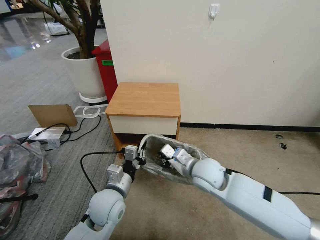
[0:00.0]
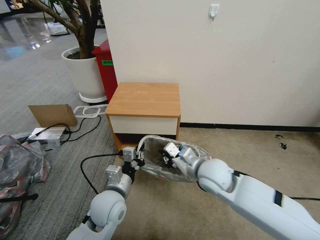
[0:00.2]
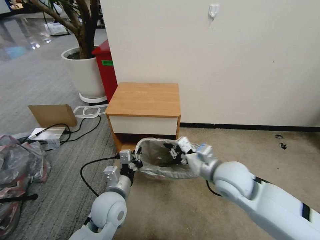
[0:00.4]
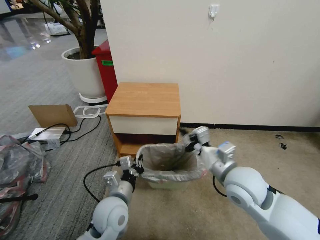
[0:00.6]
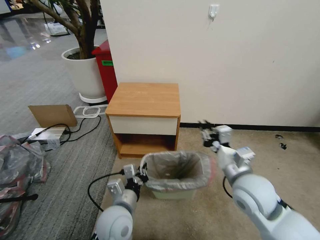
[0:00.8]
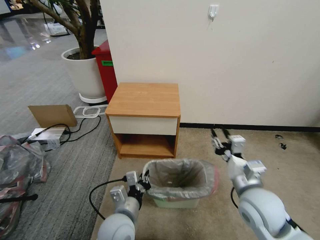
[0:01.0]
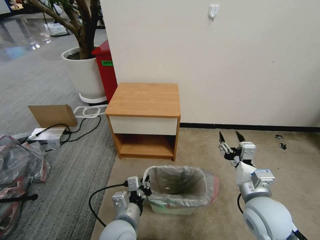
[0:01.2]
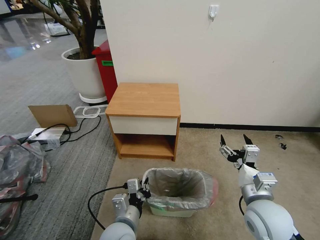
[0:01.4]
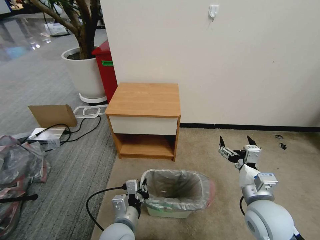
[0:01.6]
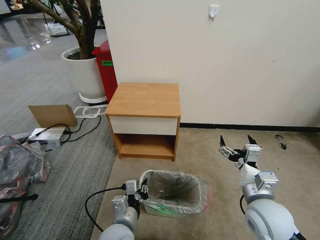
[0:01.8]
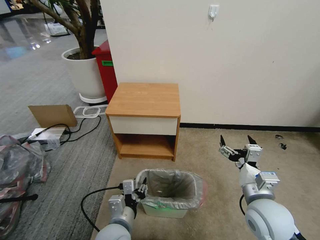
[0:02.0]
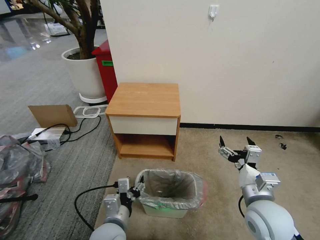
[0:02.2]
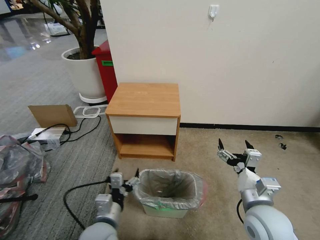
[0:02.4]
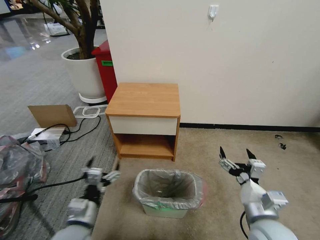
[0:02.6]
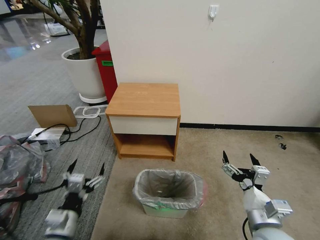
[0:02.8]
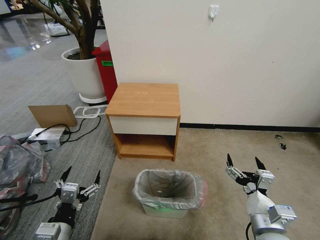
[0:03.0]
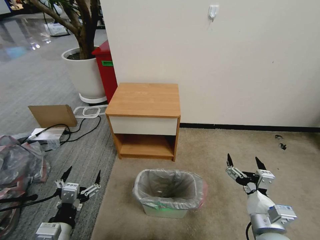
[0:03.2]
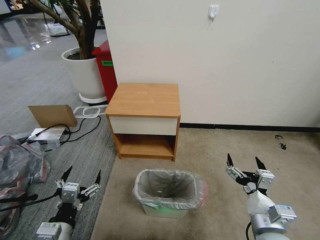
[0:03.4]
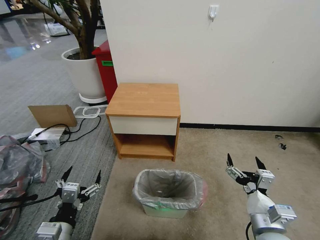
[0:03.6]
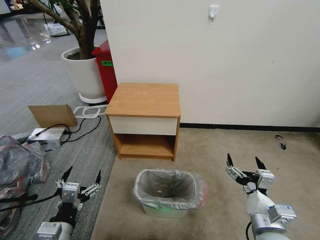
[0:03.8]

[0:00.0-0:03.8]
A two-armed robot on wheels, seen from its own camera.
Task of the whole recording: Pick up the garbage bag from the table and place it over the trash can.
0:00.0 to 0:01.2: The right gripper moves to the right and backward, approximately 15 cm, and opens up. Meanwhile the left gripper travels backward by some 10 cm.
0:01.2 to 0:02.6: The right gripper ends up roughly 5 cm from where it was, and opens up, while the left gripper is displaced to the left by approximately 10 cm, and opens up.
0:02.6 to 0:03.8: The left gripper is displaced backward by approximately 5 cm.

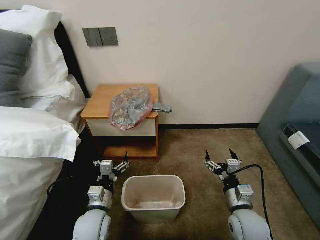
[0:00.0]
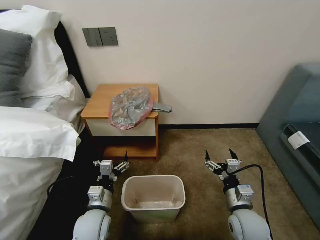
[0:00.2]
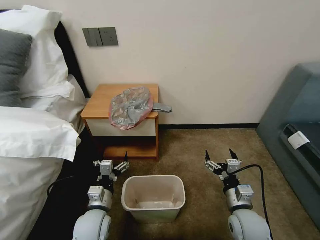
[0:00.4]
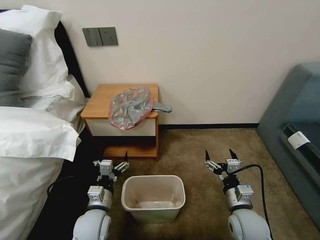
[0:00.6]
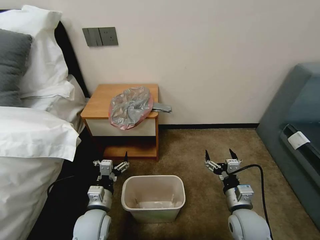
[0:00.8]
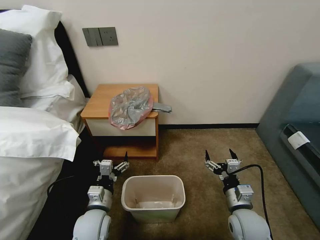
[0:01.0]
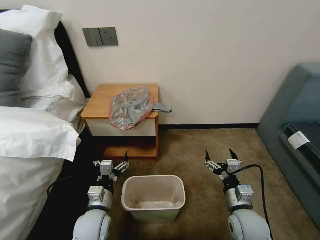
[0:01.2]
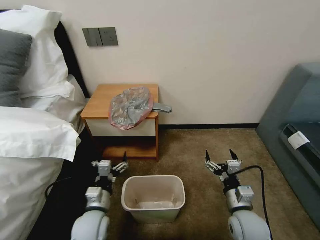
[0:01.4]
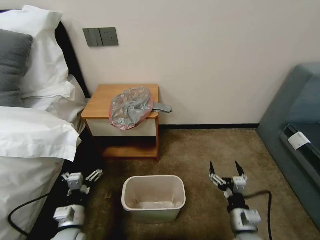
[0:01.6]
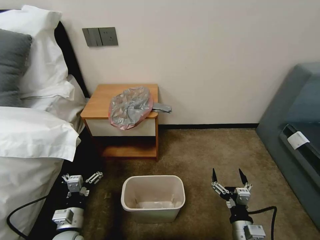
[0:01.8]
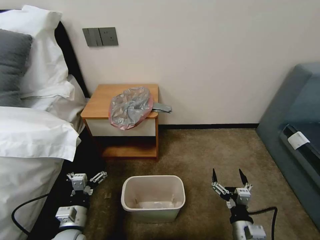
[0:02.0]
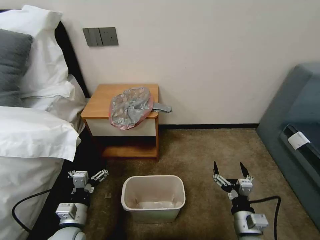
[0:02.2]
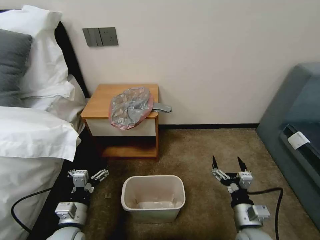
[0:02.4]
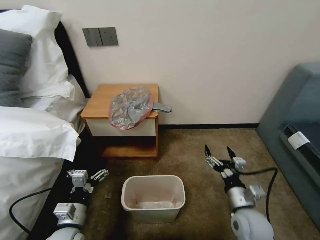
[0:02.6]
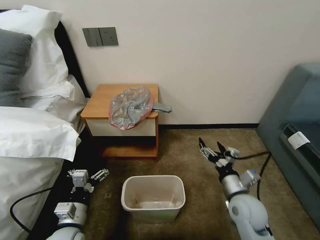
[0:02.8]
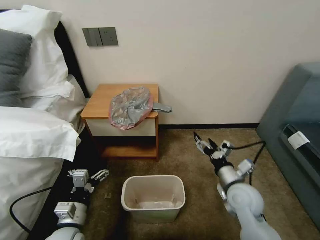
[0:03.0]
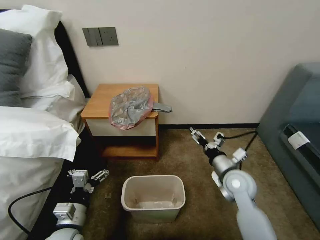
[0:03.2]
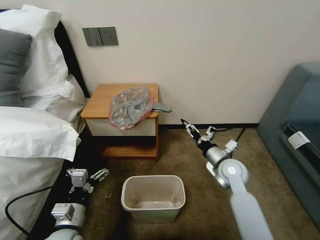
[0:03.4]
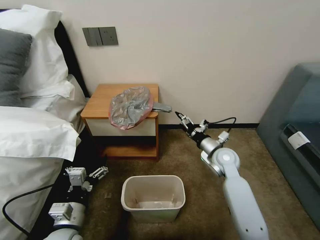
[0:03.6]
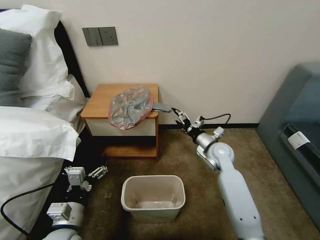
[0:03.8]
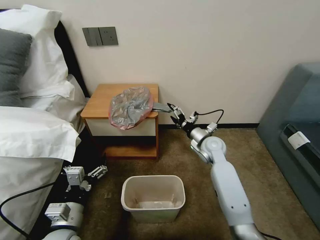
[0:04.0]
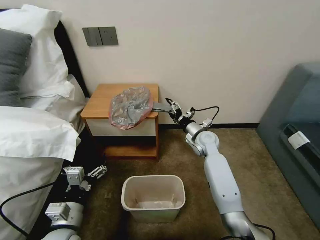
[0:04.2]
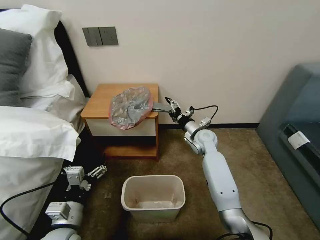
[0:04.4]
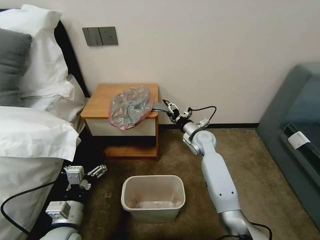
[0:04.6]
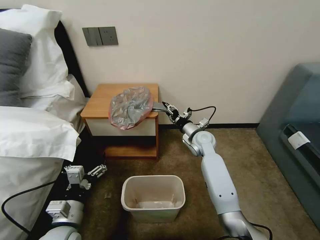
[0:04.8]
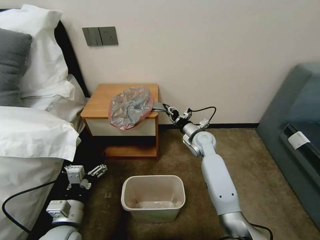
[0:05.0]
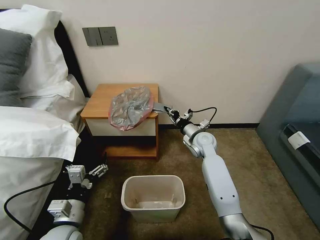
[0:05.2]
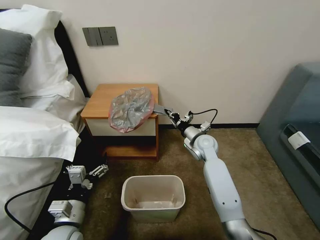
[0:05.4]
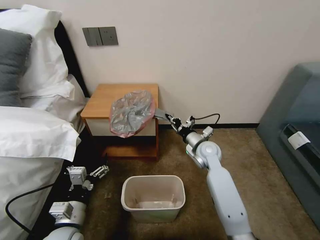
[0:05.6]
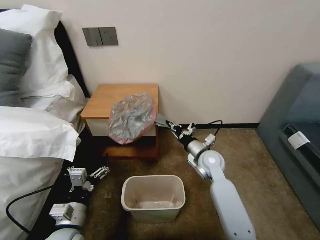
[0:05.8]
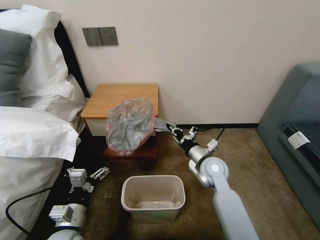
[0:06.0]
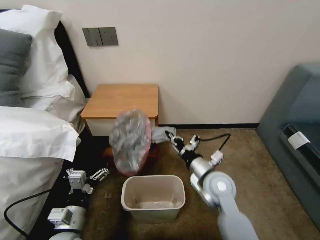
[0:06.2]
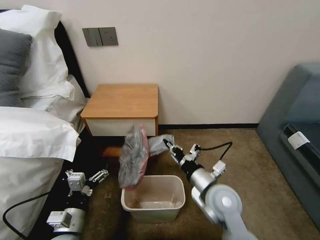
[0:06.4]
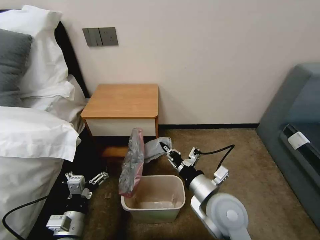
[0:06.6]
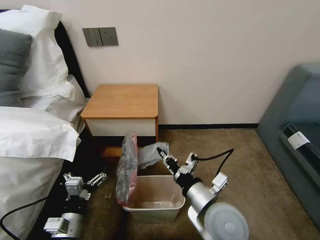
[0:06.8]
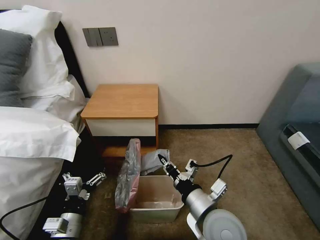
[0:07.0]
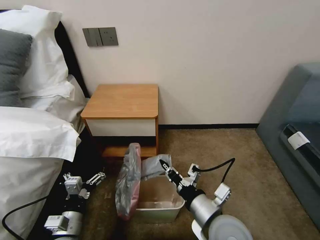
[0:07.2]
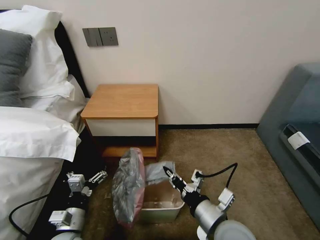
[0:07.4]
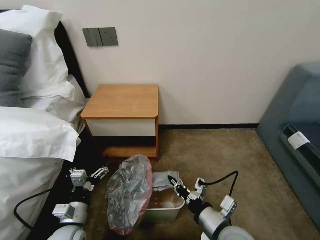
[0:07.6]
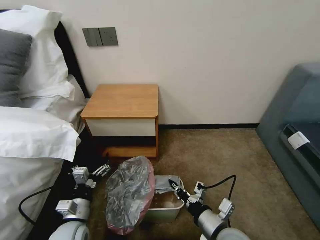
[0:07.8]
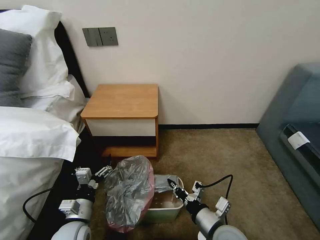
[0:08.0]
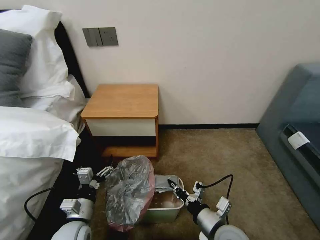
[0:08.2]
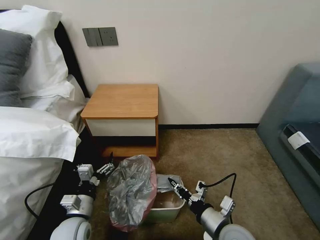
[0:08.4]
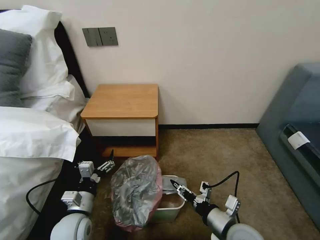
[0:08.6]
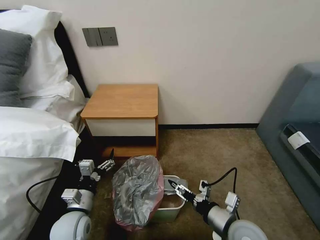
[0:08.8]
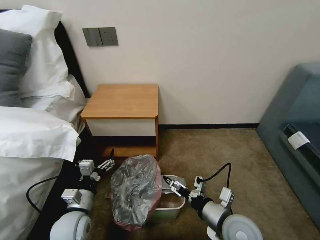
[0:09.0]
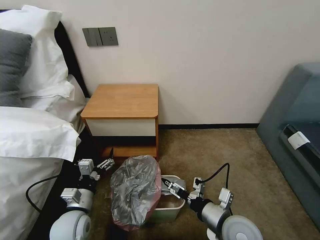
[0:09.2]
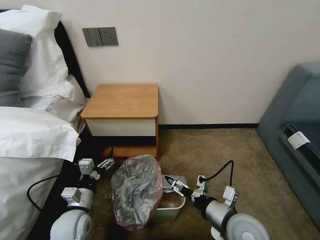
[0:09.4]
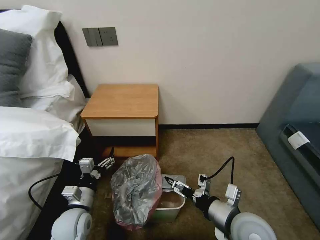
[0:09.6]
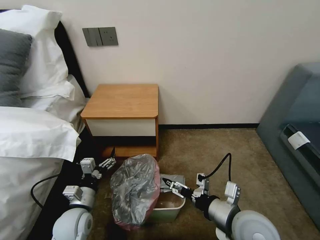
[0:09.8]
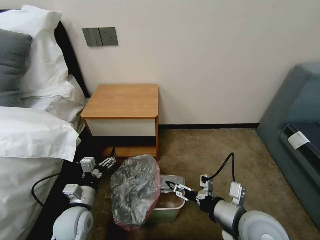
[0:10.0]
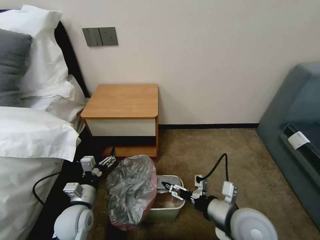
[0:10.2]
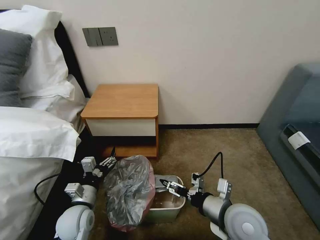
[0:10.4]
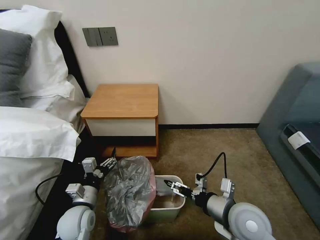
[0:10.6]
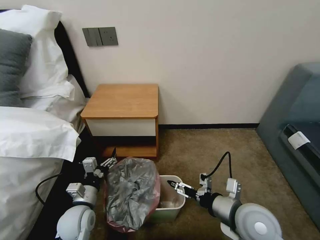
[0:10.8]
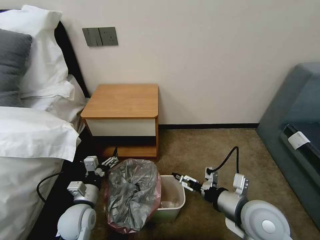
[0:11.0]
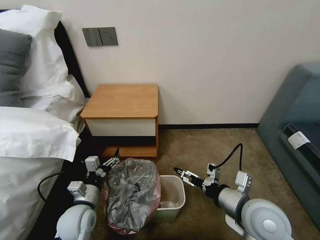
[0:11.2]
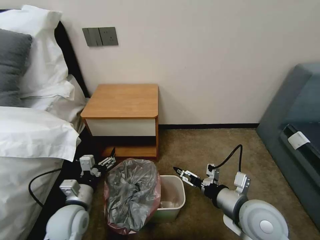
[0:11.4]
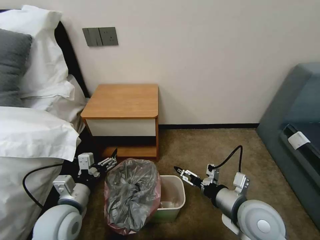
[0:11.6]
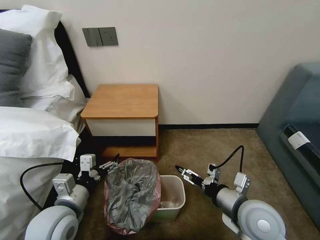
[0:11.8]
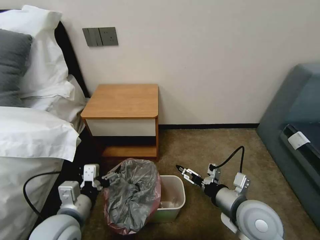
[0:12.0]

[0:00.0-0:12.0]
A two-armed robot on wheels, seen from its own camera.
Task of the whole recording: Pick up the garbage bag from the table and place it over the trash can.
0:01.6 to 0:03.0: The right gripper travels forward and upward by some 15 cm.
0:03.0 to 0:04.4: The right gripper goes some 20 cm forward.
0:04.4 to 0:06.0: The right gripper heads backward, covering some 15 cm, and closes.
0:06.0 to 0:07.6: The right gripper goes some 20 cm backward.
0:07.6 to 0:09.0: The right gripper opens.
0:10.4 to 0:12.0: The left gripper travels upward and backward by some 15 cm.

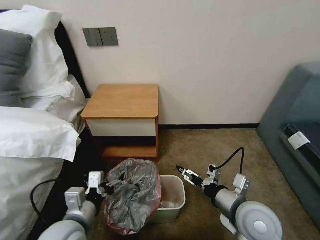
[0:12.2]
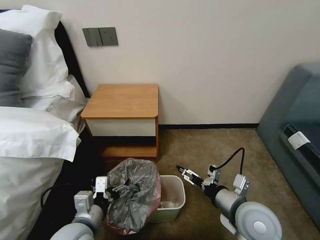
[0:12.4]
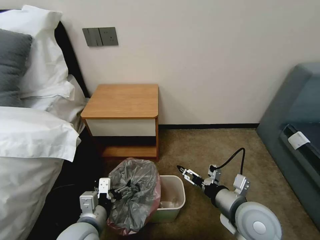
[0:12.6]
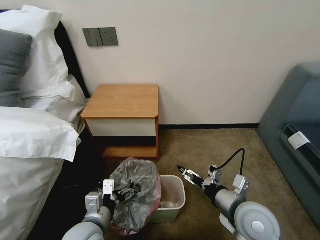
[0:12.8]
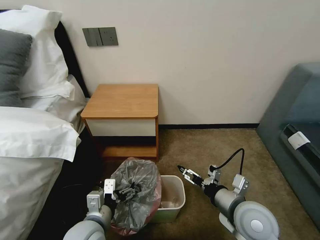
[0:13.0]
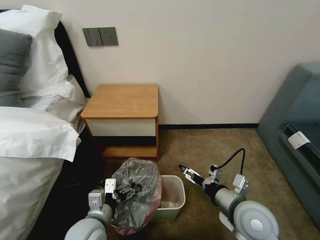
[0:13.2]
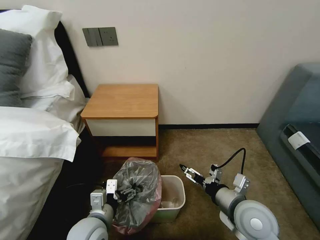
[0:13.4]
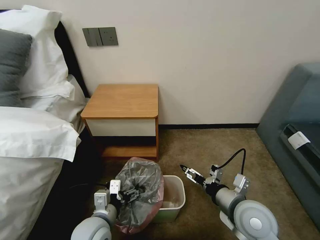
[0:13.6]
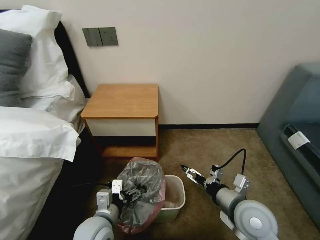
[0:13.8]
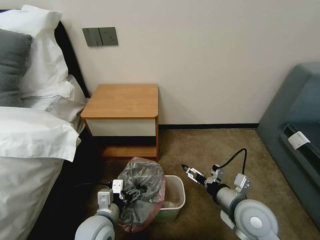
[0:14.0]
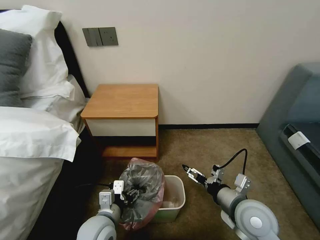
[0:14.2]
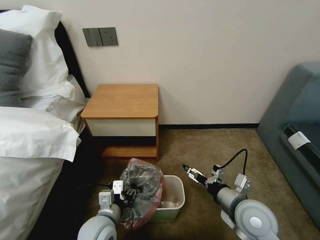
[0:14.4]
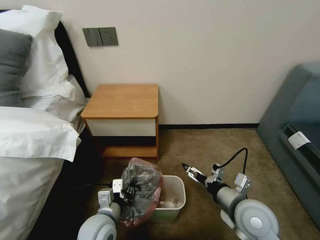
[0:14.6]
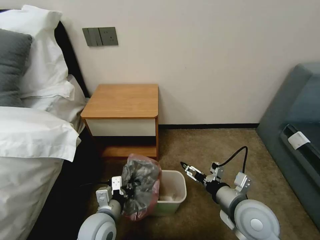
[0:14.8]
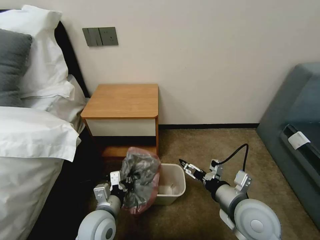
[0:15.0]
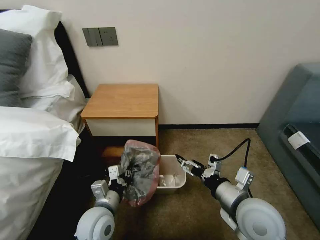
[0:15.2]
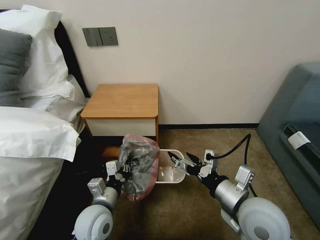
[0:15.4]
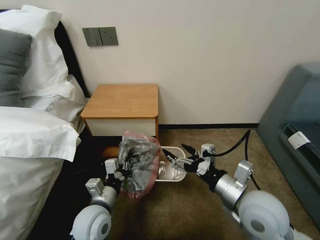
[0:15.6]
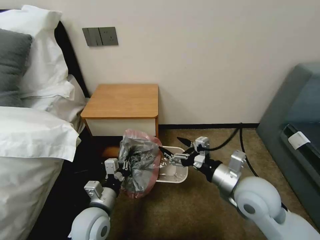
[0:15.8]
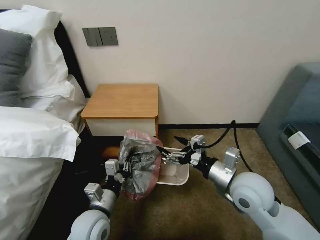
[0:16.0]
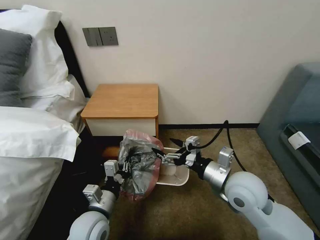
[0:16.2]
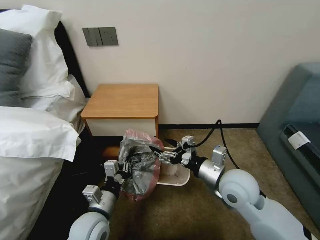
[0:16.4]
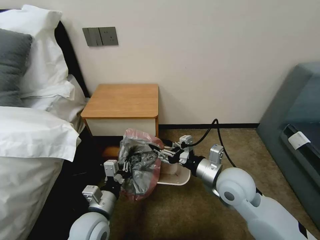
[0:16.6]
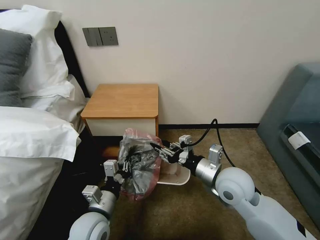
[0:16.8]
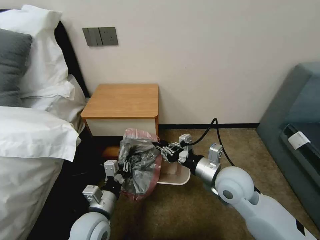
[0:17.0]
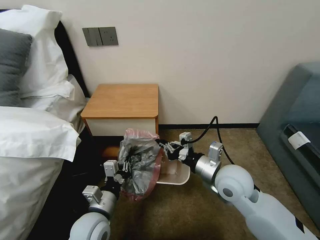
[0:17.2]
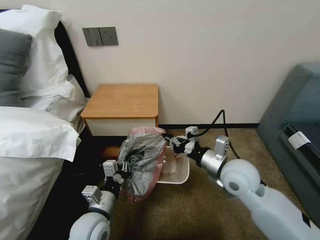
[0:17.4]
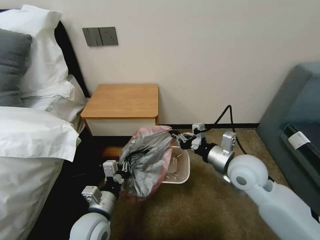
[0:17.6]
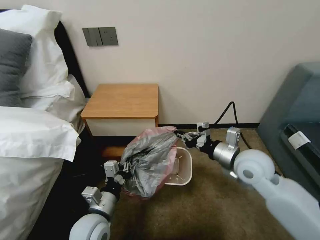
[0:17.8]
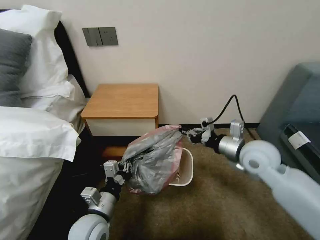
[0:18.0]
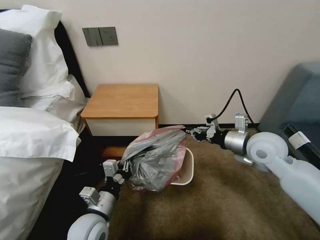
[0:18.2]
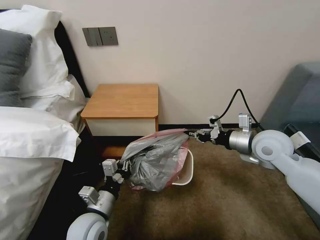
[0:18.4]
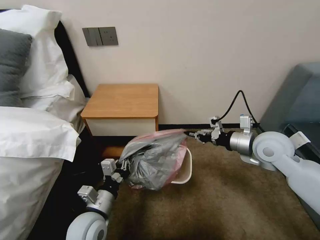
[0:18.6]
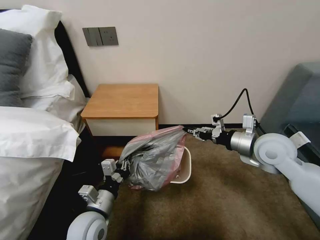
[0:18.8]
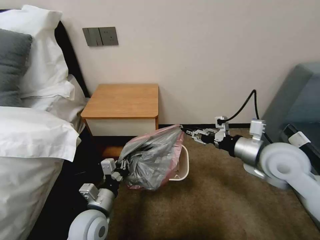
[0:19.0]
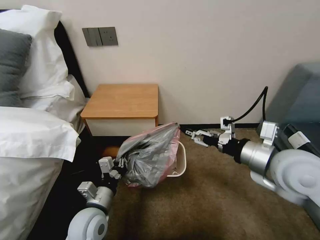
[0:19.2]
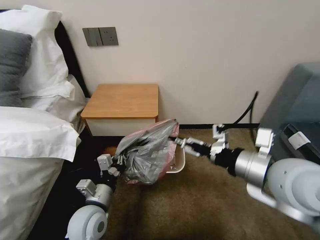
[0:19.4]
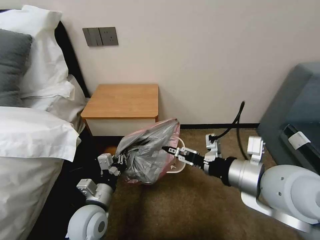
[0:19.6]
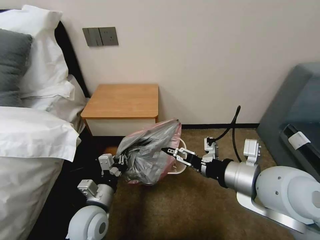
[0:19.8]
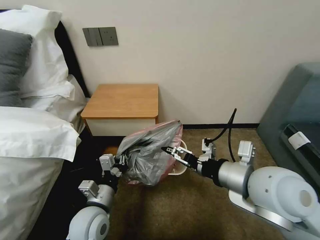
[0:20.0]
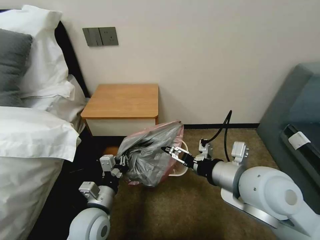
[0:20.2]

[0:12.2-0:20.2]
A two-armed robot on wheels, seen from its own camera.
Task of the whole recording: Pick up the garbage bag from the table and place it over the trash can.
0:12.2 to 0:13.8: The left gripper heads downward, covering some 5 cm.
0:13.8 to 0:15.4: The right gripper goes some 5 cm upward, while the left gripper closes.
0:15.4 to 0:17.0: The right gripper moves forward, about 10 cm, and closes.
0:17.0 to 0:18.6: The right gripper is displaced to the right, forward and upward by some 15 cm.
0:18.6 to 0:20.2: The right gripper travels backward and to the left by roughly 15 cm, and opens.
